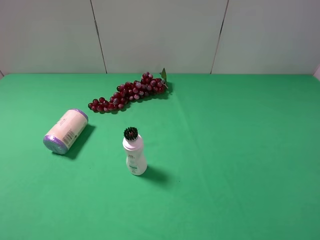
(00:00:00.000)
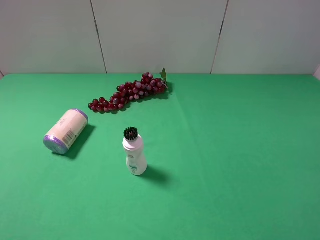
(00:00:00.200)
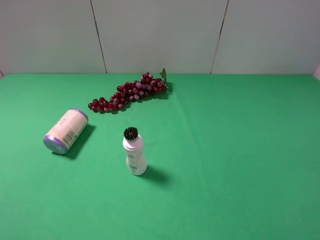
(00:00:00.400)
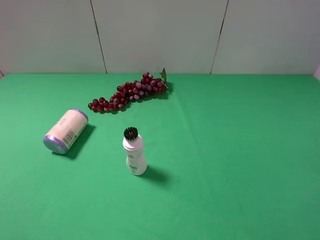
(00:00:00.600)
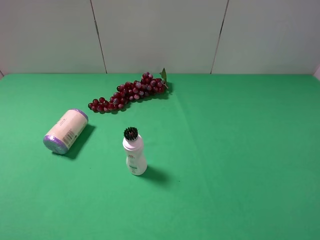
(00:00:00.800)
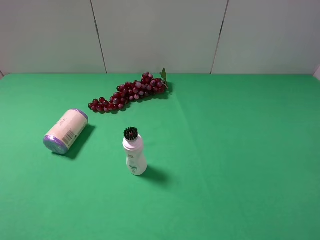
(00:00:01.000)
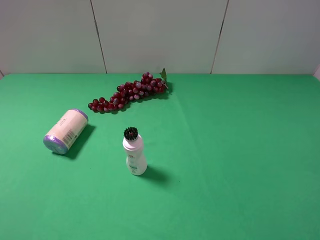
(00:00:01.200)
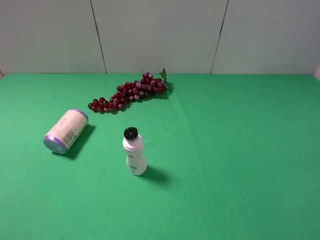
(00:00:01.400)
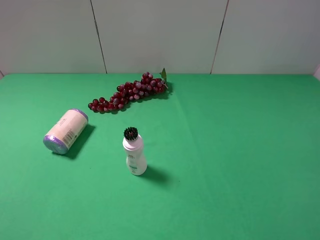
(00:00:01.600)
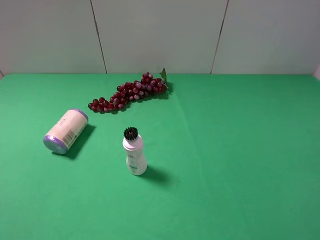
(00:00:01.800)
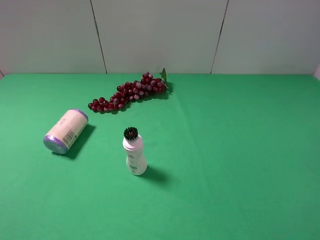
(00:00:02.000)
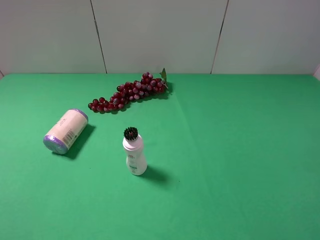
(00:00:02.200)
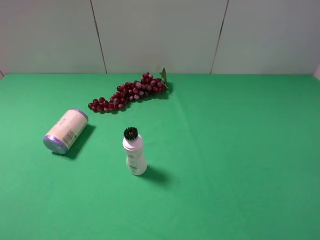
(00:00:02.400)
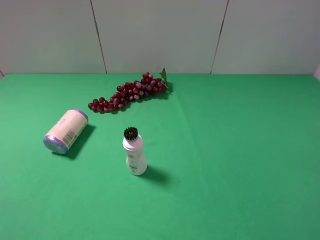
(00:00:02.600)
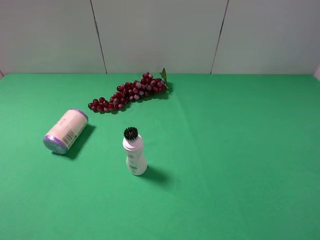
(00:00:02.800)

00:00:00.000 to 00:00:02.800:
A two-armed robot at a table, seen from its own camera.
Task of the whole recording: use the right gripper to pick up the item and transfer it from the right gripper to the left gripper.
00:00:01.400 to 00:00:02.800: The two grippers keep their place.
